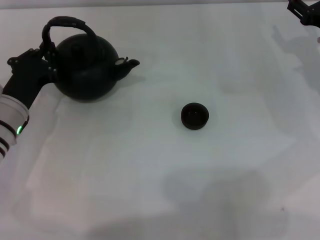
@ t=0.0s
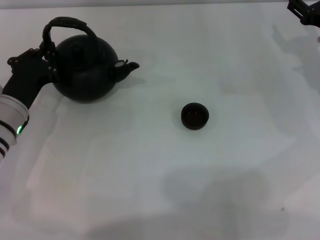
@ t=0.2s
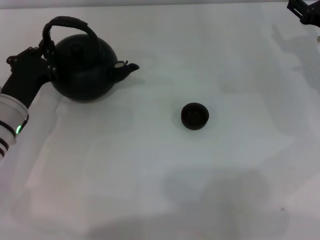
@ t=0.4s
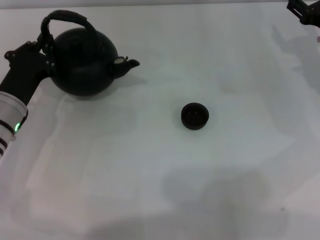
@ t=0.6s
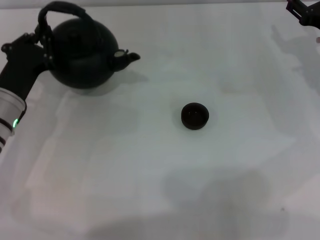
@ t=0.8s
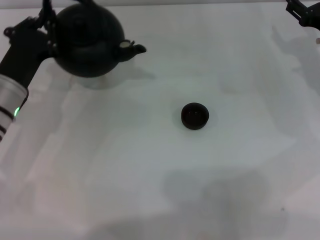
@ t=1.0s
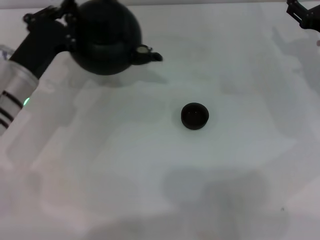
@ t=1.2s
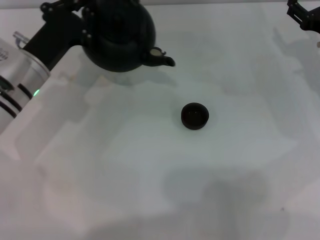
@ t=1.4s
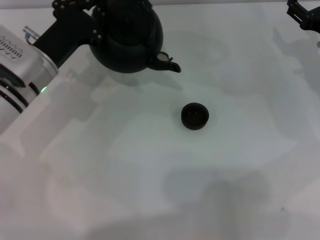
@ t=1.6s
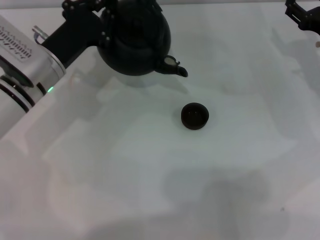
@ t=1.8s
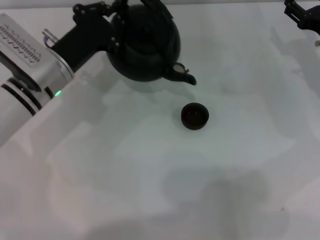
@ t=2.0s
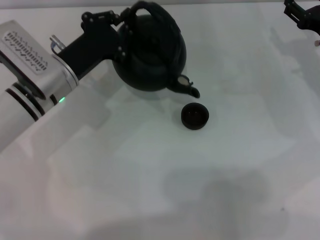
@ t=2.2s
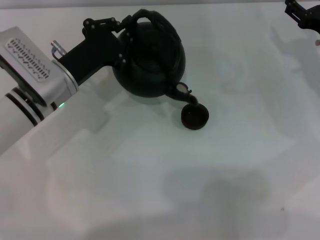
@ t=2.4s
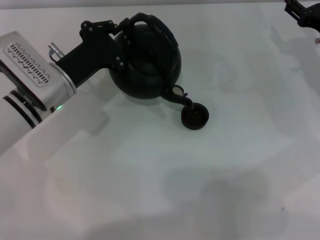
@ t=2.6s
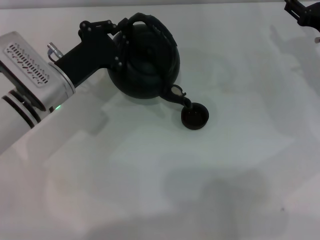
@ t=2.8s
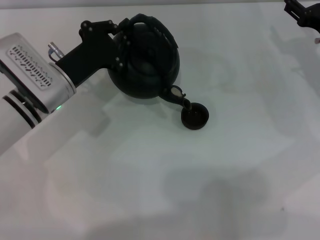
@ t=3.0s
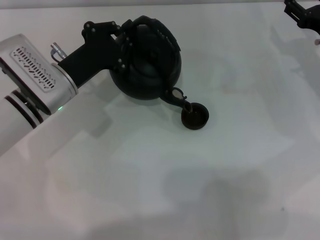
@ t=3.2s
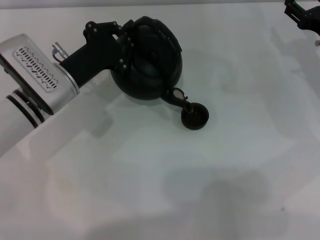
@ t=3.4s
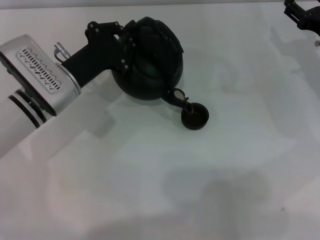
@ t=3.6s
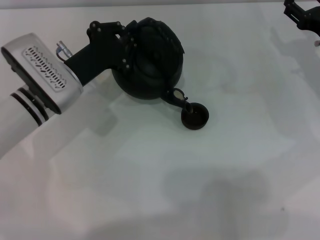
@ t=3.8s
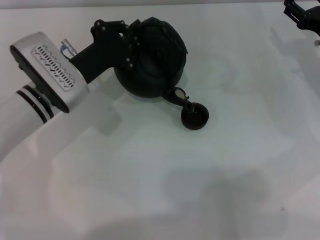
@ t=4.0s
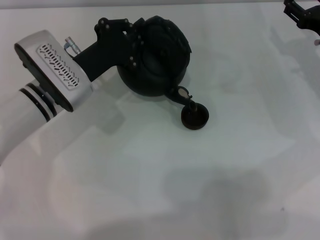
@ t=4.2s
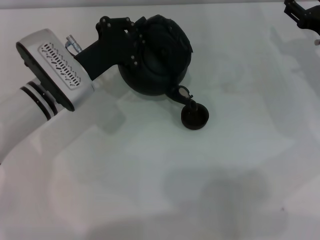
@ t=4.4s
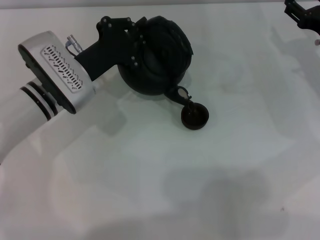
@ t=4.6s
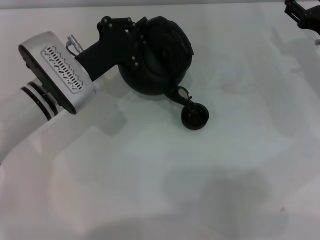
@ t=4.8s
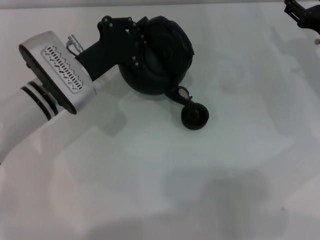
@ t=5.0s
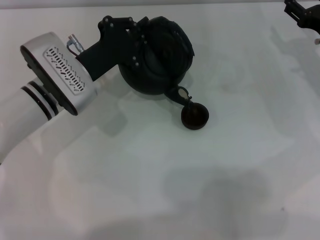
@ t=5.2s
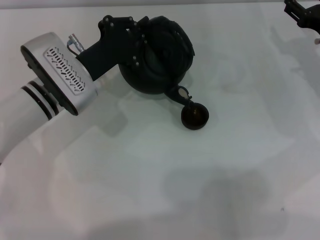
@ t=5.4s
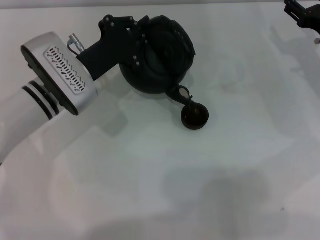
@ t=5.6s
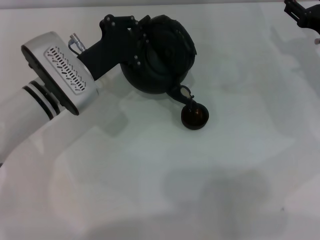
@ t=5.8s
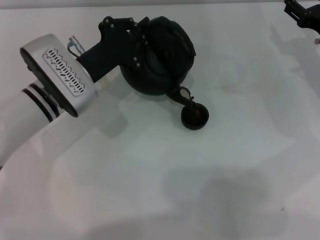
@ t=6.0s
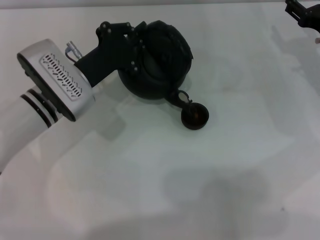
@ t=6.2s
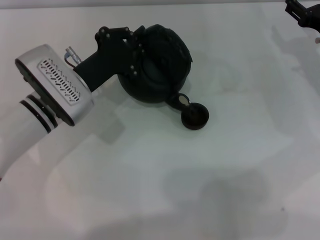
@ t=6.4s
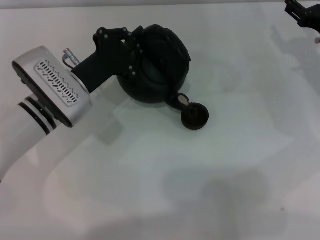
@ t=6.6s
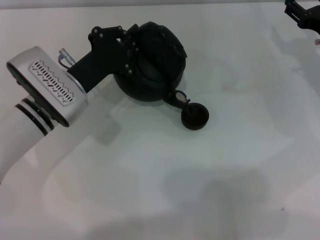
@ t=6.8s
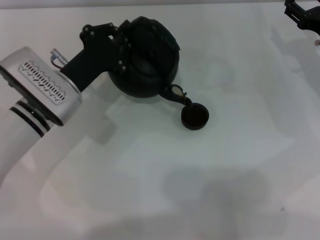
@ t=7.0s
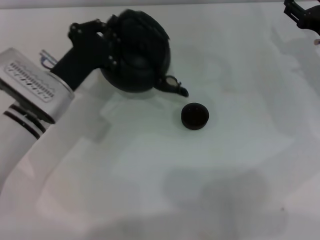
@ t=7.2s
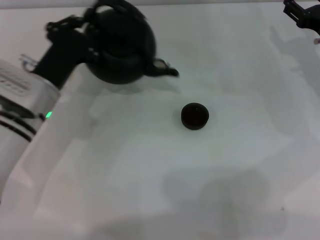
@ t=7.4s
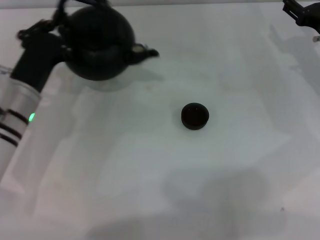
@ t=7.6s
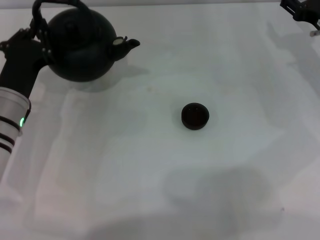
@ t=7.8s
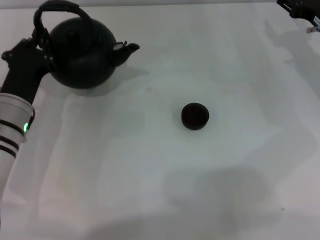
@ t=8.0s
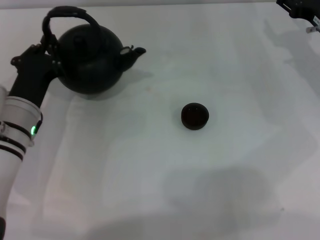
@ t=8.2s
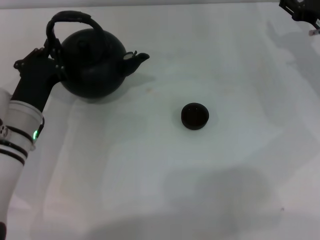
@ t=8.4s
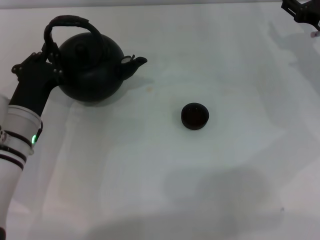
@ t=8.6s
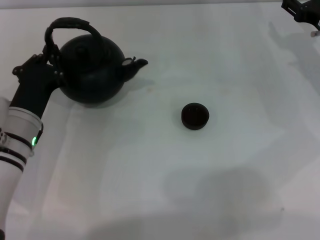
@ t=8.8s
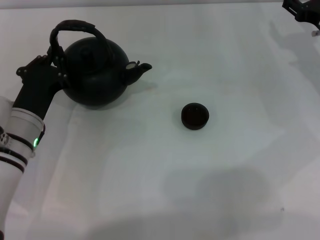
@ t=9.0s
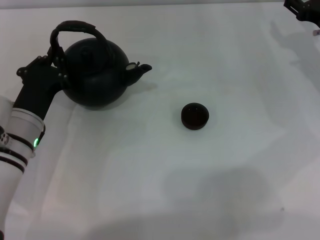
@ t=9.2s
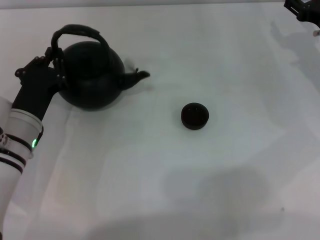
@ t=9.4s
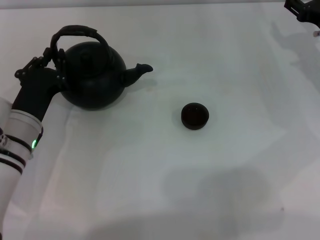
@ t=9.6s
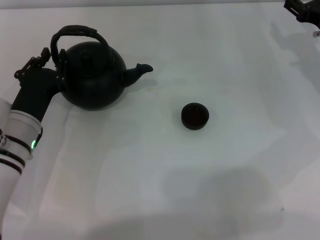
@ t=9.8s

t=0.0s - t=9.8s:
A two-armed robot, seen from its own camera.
Task of the whole recording: Grasp the handle of the teapot with one hand and pour tea into the teacup.
Step, t=1.2s - t=7.2s: Pour tea into the teacup with the left gripper.
t=0.0s - t=1.4s: The left gripper shifts by about 5 cm.
t=1.4s - t=4.2s: The grippers make only small movements.
t=4.2s - t=7.0s: The grippers stay close to where they were, moving slightly.
t=7.0s - t=8.4s: The left gripper ends up roughly 5 cm from where it was.
t=8.4s - t=9.8s: Both grippers stay put.

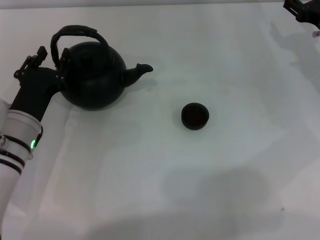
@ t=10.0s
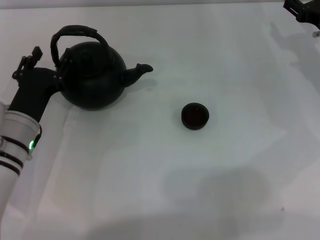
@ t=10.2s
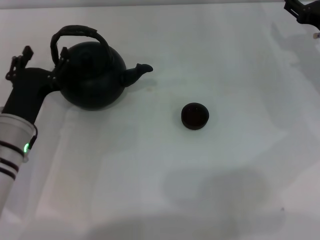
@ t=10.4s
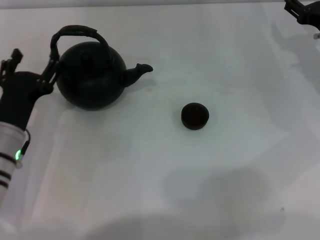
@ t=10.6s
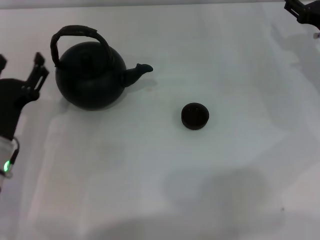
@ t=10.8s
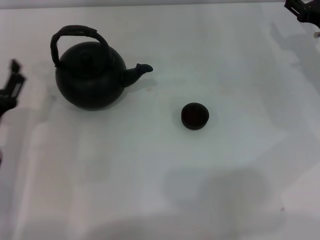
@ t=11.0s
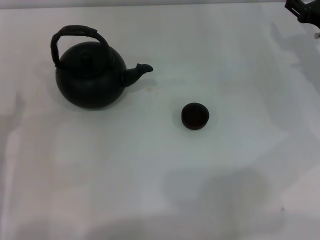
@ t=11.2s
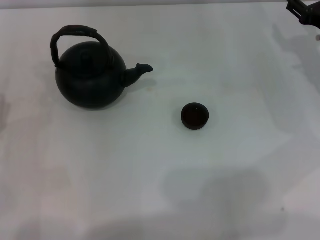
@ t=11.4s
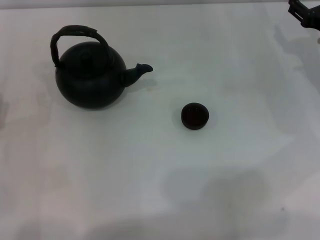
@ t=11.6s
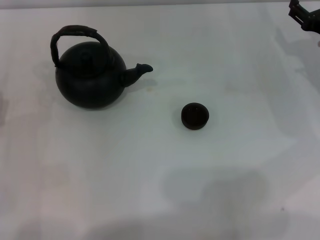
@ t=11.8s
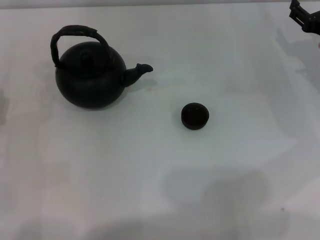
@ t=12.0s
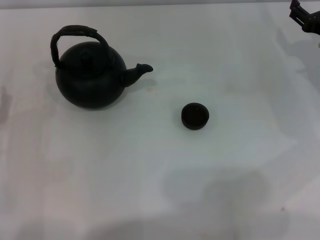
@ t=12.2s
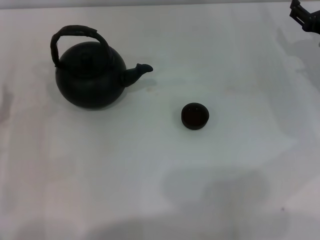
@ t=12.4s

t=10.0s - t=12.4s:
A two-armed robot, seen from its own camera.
Task of the whole recording: Grasp the handle of the teapot with one hand and pour tea into the teacup.
t=10.0s - t=11.2s: The left gripper travels to the left and backward by about 10 cm, and opens.
t=11.2s - t=12.4s: The grippers move only a little.
